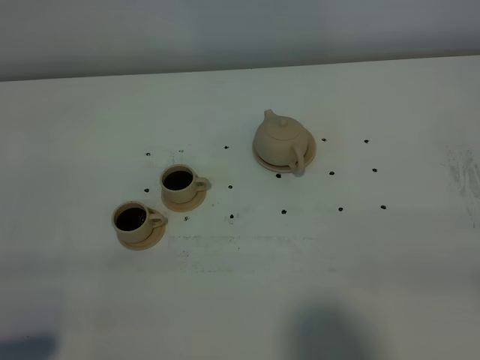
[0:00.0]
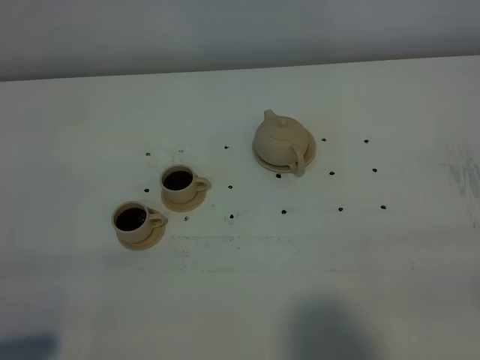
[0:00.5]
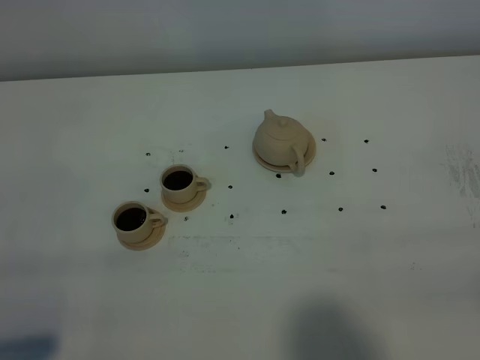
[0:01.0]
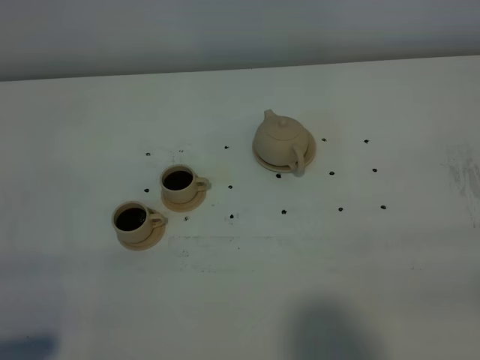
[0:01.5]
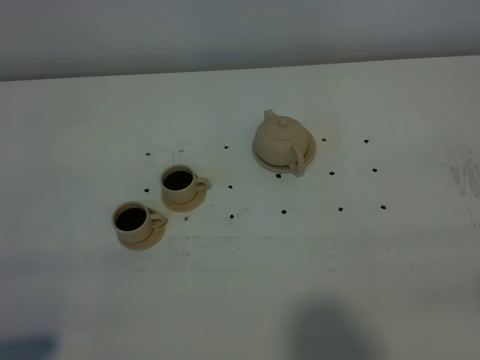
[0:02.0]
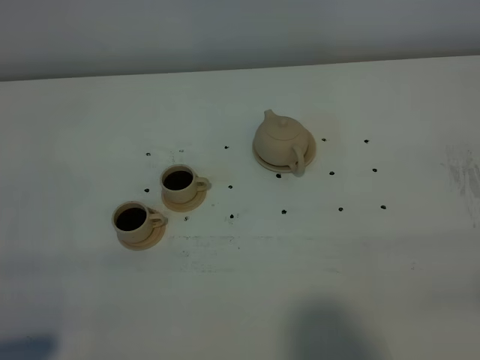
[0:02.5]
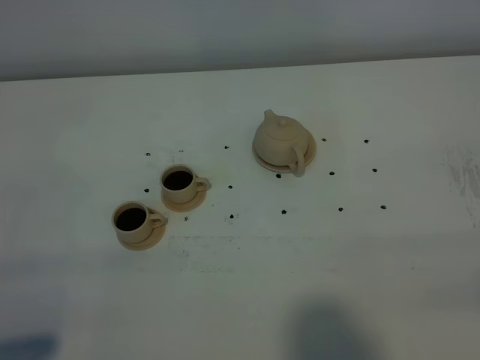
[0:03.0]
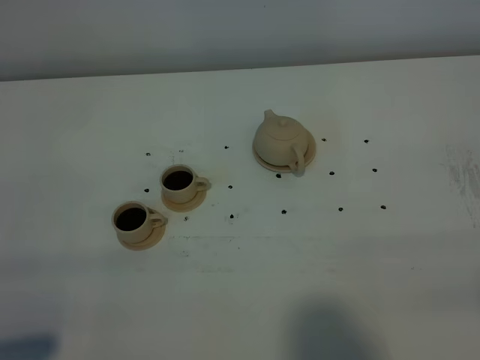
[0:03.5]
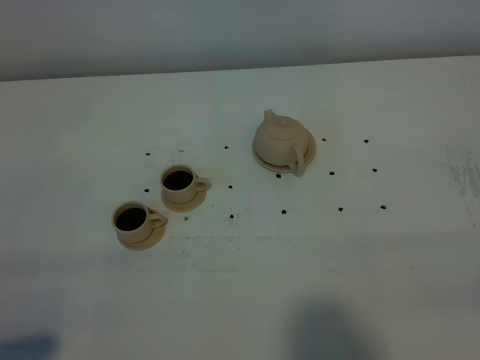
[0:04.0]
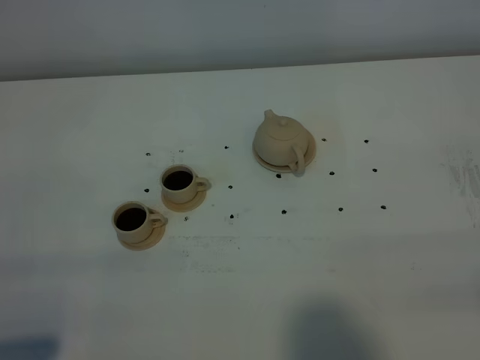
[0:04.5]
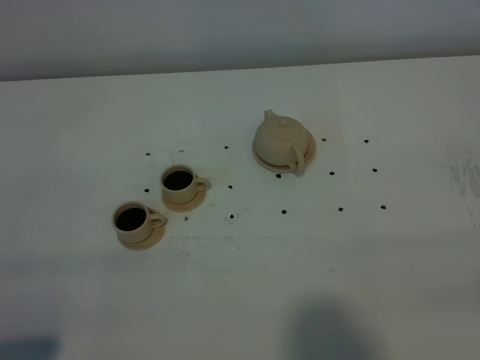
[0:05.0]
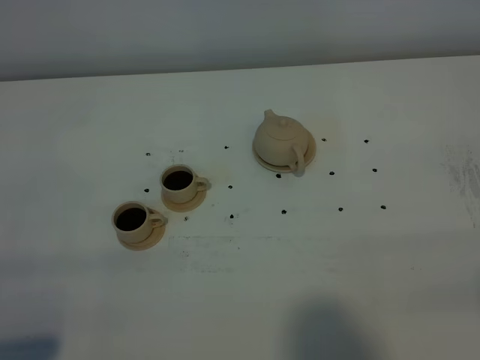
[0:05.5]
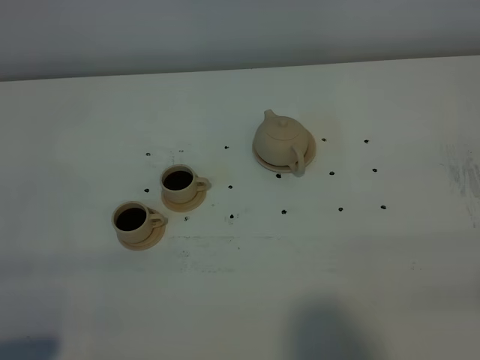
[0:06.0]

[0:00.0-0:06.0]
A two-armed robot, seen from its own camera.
Task of the whole recording: grasp the brown teapot and pour the tea into the two brown teacups one by one, put the brown teapot back in its original place.
0:04.0 to 0:06.0: The two grippers keep their place.

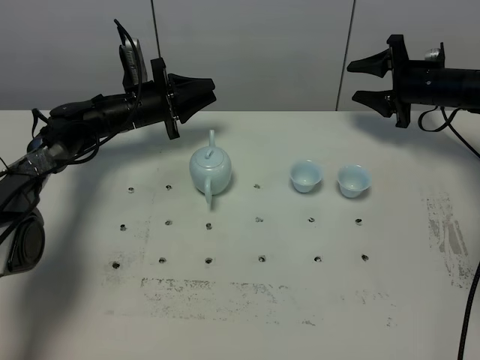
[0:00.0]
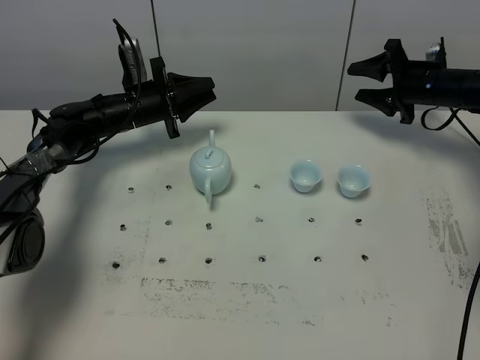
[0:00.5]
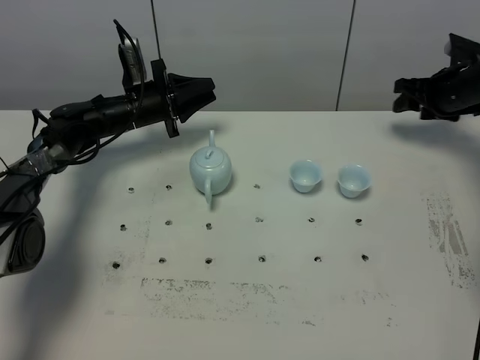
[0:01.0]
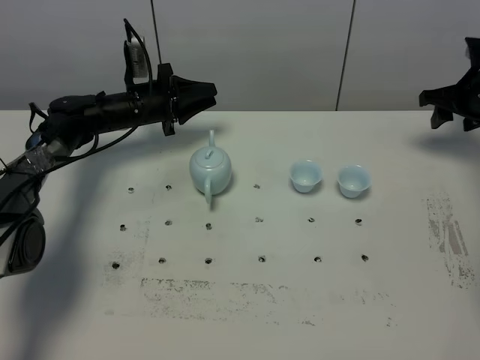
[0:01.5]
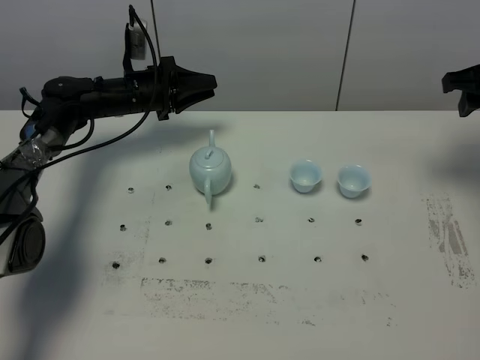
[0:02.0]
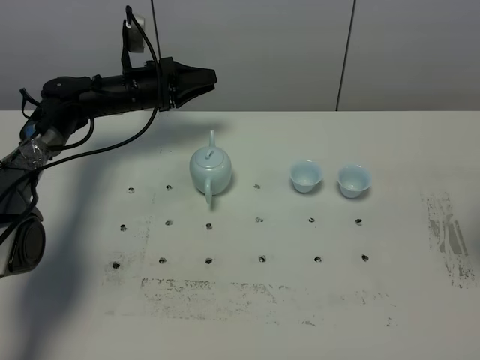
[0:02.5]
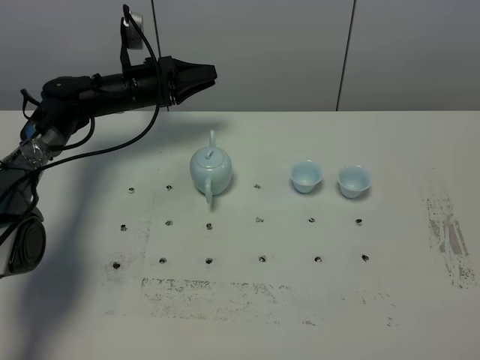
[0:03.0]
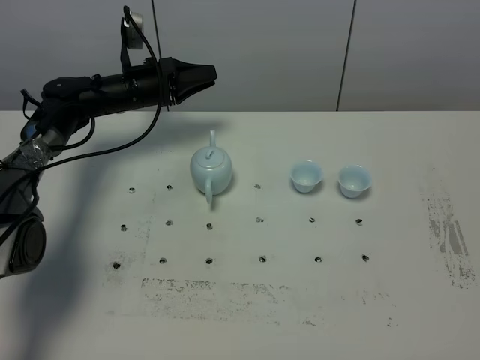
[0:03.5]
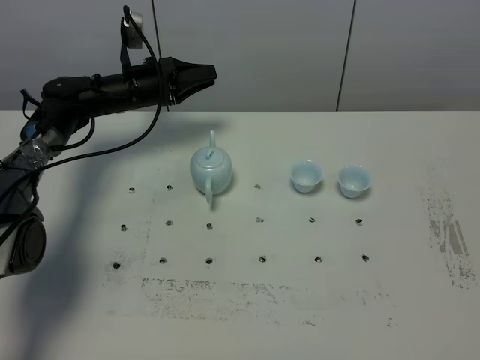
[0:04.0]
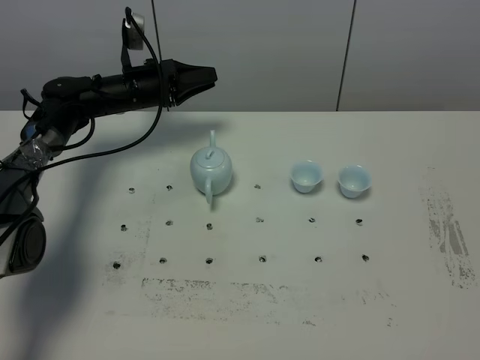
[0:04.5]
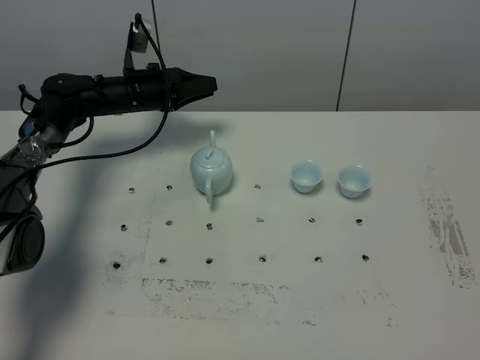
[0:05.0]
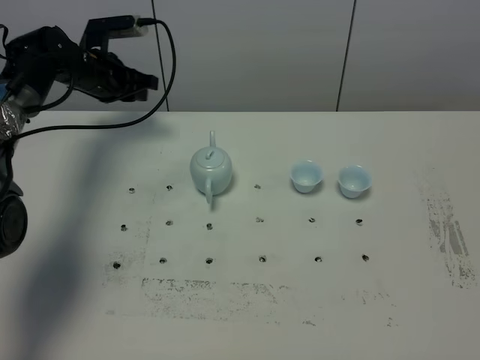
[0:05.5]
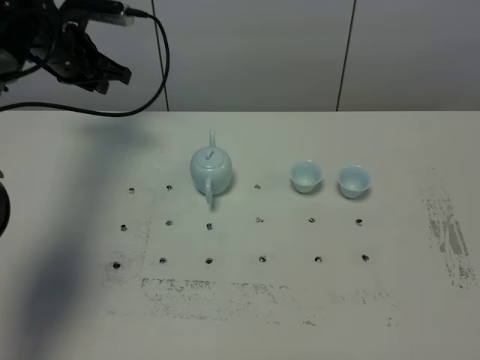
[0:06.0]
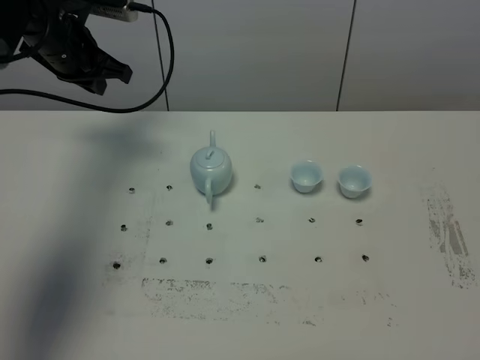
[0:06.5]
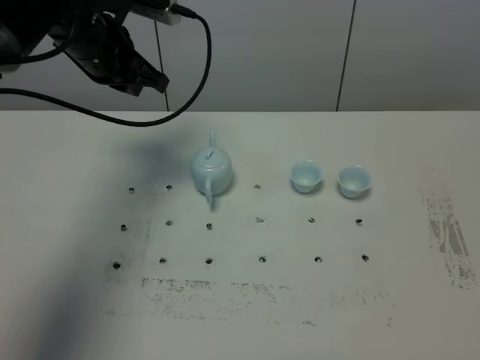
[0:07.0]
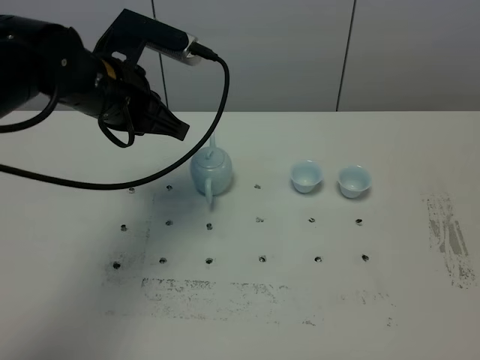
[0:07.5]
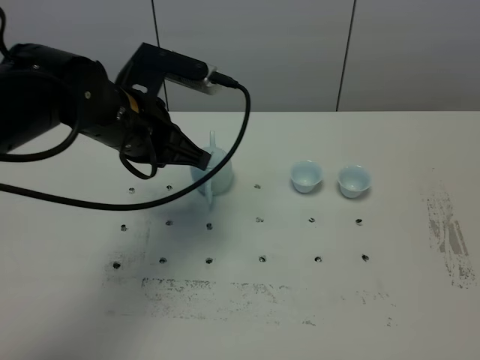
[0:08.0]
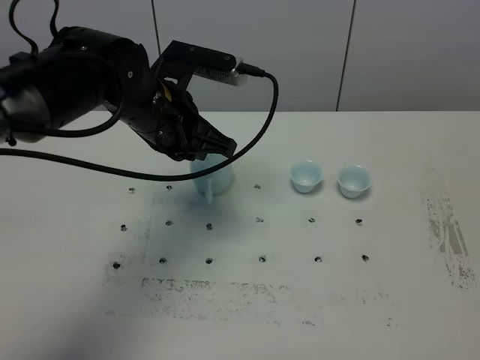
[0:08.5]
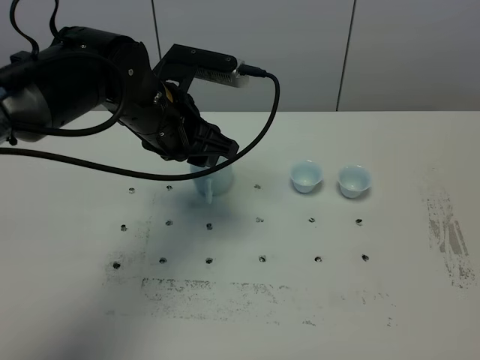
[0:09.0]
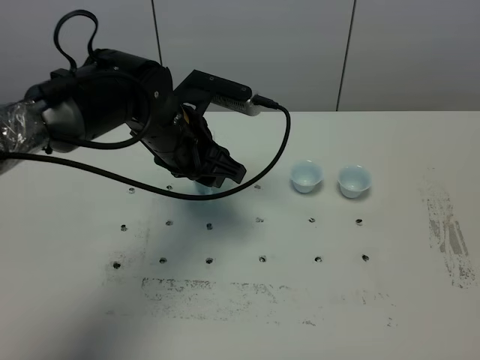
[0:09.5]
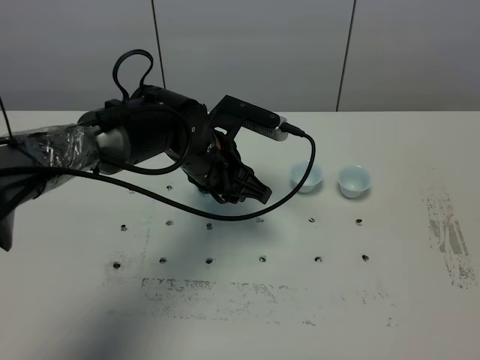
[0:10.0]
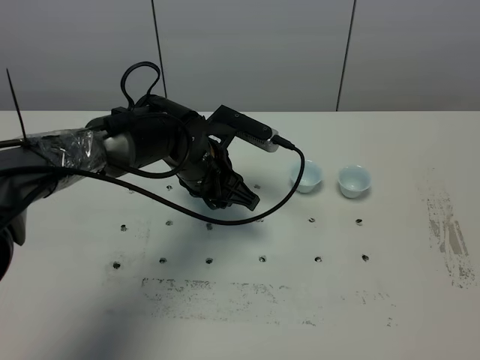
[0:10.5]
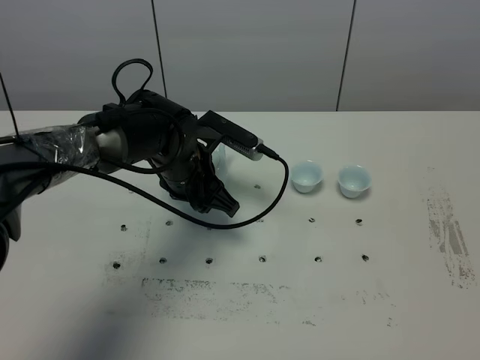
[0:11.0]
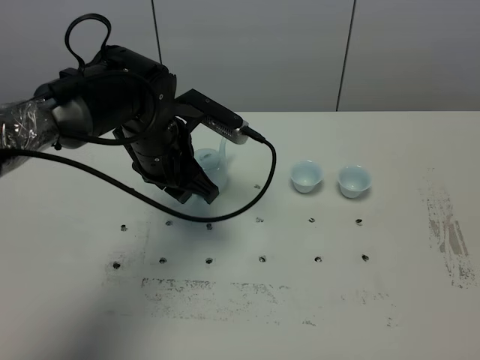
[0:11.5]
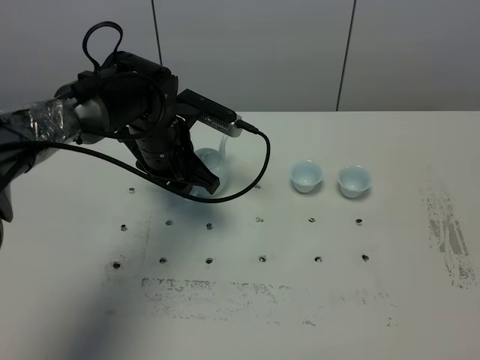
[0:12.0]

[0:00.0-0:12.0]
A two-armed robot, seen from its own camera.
Task of the whole recording: grasp the blue porcelain teapot and pour the tea into the two blue porcelain teacups one by one, put the blue porcelain teapot back in its original place.
0:00.0 to 0:02.0: The right gripper is displaced upward and backward by some 20 cm.
0:02.0 to 0:04.0: The right gripper heads backward, covering about 40 cm, and closes its fingers.
0:04.0 to 0:06.0: The left gripper travels upward and to the left by some 15 cm.
0:06.0 to 0:08.0: The right gripper closes its fingers, while the left gripper heads backward and to the right, covering about 25 cm.
0:08.0 to 0:10.0: The left gripper is displaced downward and to the right by about 10 cm, and opens.
0:10.0 to 0:12.0: The left gripper shifts approximately 5 cm to the left.

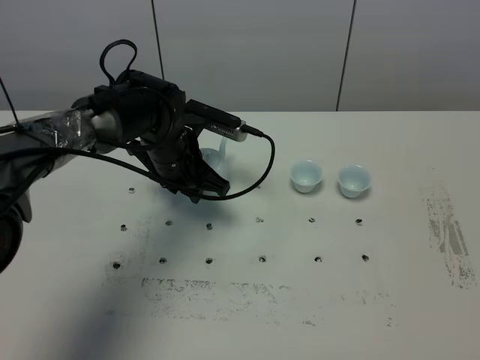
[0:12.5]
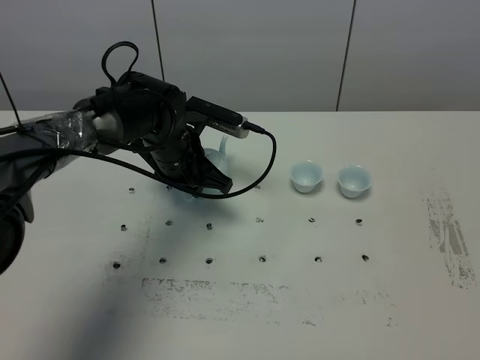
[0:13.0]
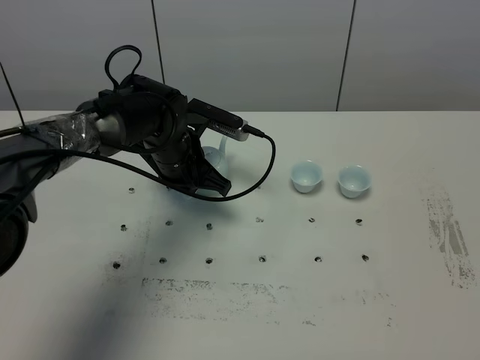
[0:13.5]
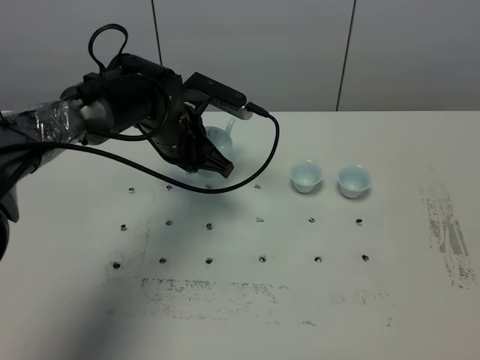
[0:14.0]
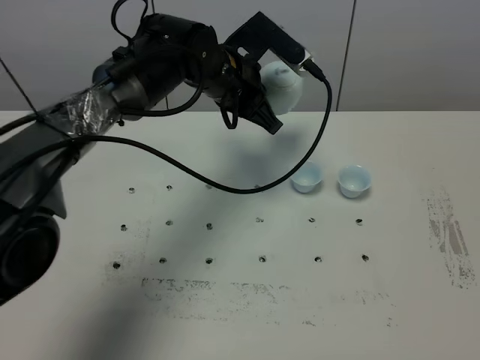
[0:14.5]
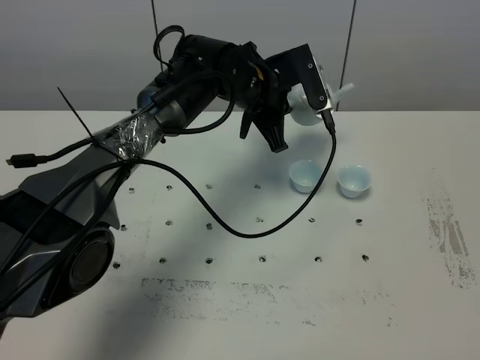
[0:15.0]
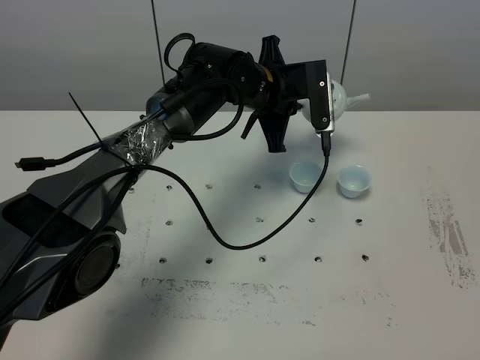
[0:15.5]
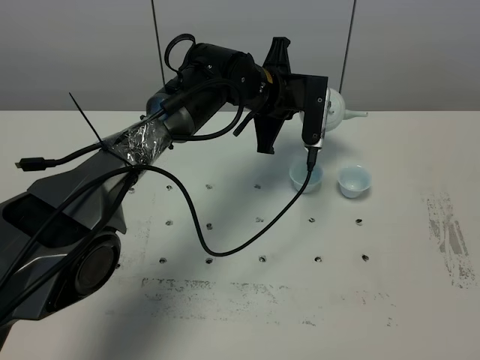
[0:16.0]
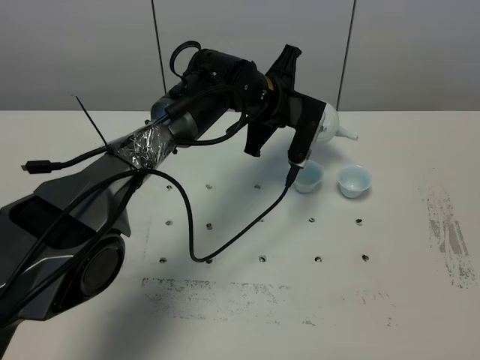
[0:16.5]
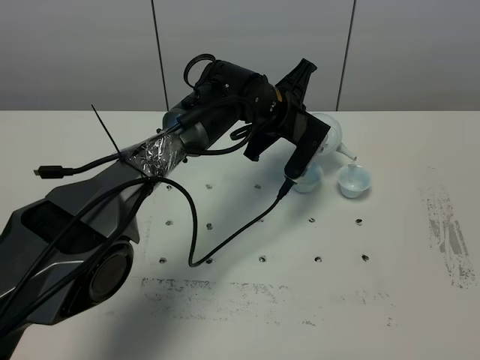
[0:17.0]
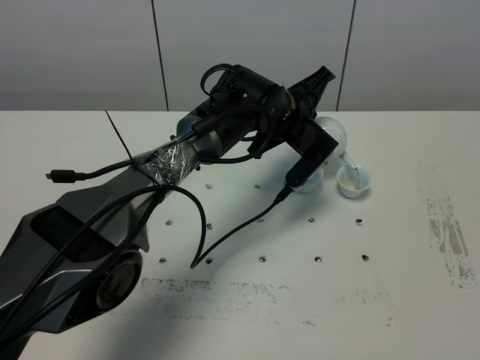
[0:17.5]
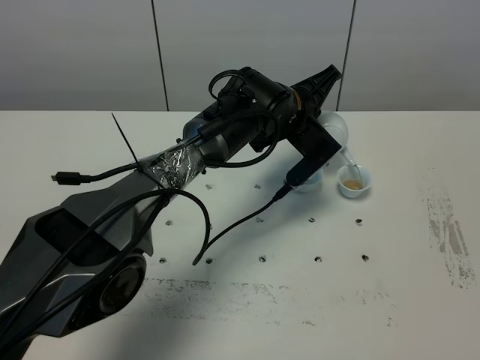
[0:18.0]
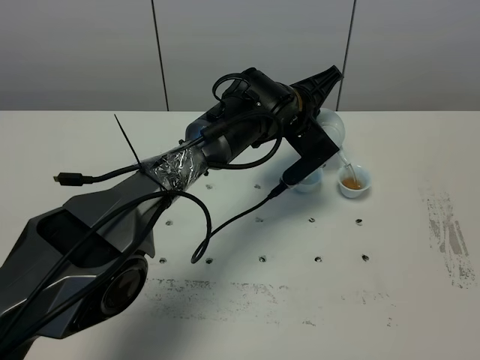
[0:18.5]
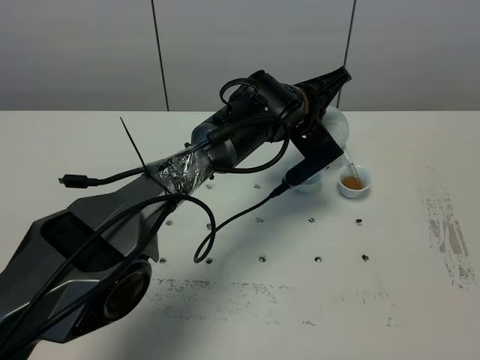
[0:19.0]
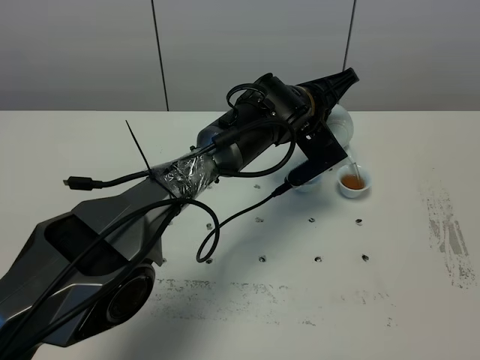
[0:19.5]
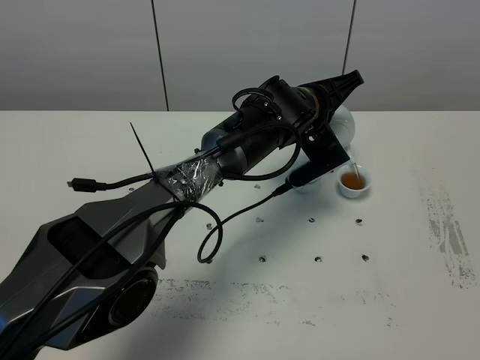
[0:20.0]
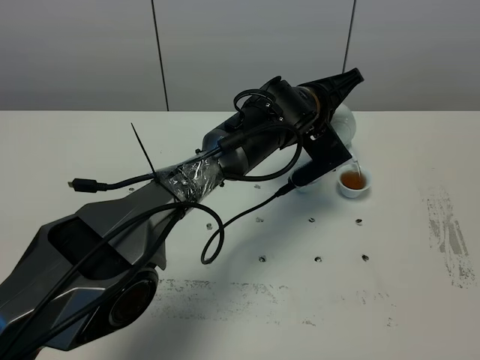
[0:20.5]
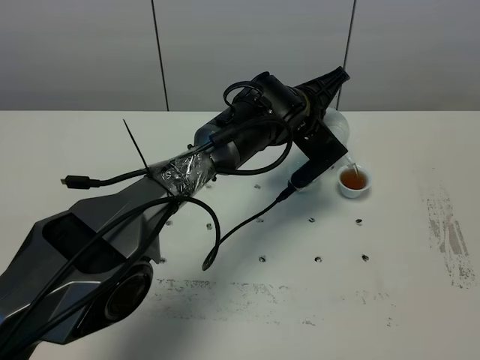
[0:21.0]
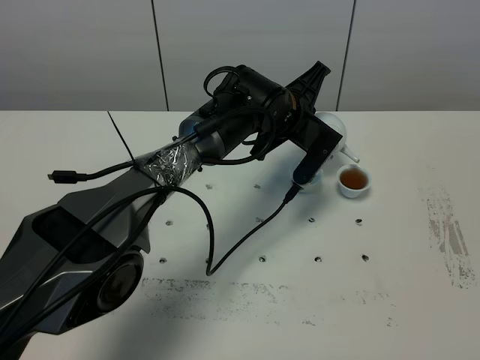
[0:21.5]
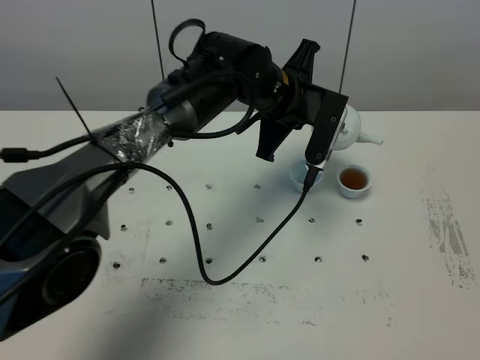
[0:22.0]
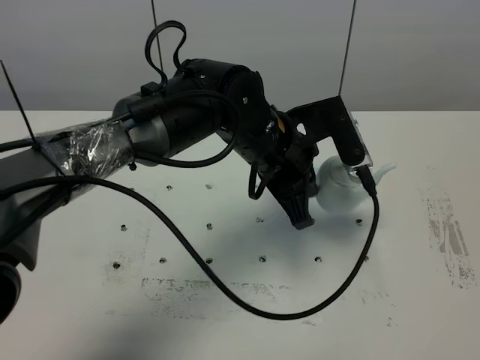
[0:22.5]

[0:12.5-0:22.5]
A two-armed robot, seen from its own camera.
Task of the whole recording: grasp the blue porcelain teapot and pour the tea into the two blue porcelain teacups one by one, put the blue porcelain teapot back in its original place.
0:12.5 to 0:14.5: The left gripper heads upward and to the right, covering approximately 10 cm, and closes its fingers.
0:14.5 to 0:16.5: The left gripper travels downward by about 5 cm.
0:18.5 to 0:20.5: The grippers stay close to where they were, moving slightly.
0:20.5 to 0:22.5: The left gripper heads backward, covering approximately 10 cm.
